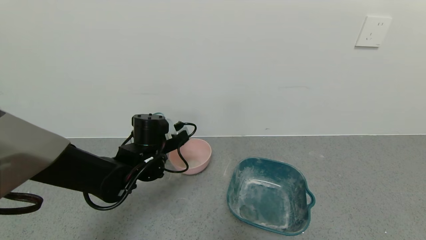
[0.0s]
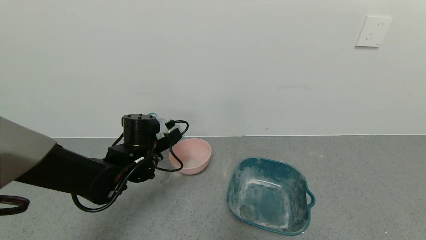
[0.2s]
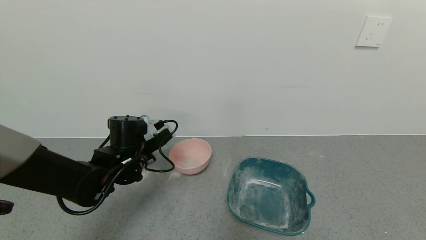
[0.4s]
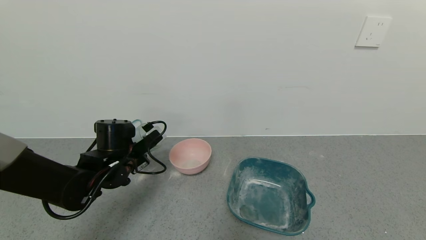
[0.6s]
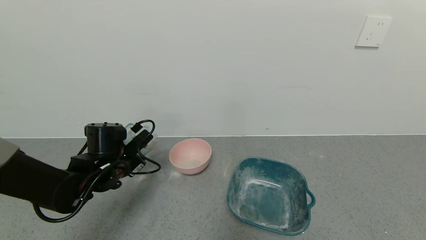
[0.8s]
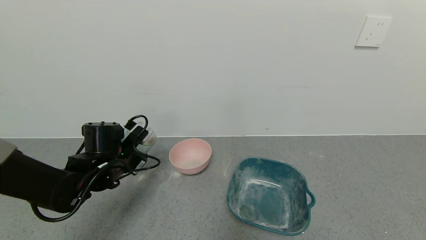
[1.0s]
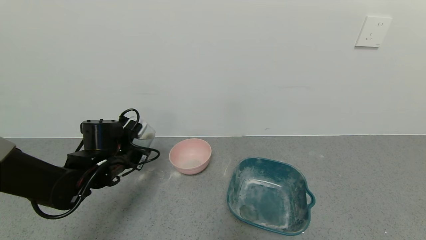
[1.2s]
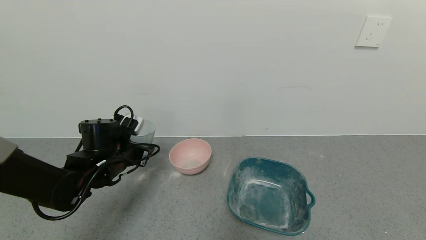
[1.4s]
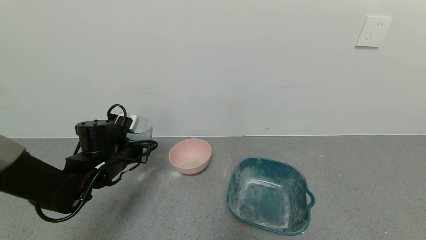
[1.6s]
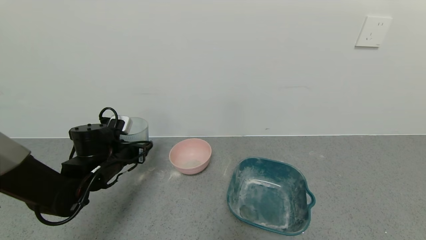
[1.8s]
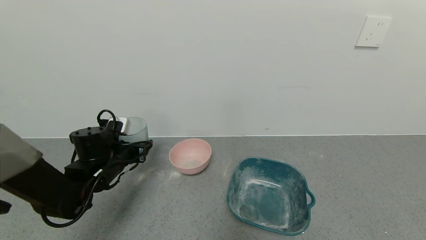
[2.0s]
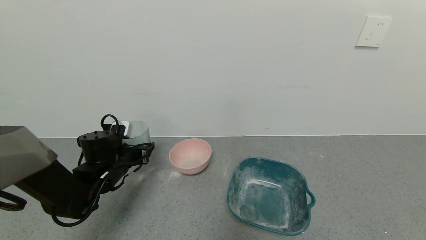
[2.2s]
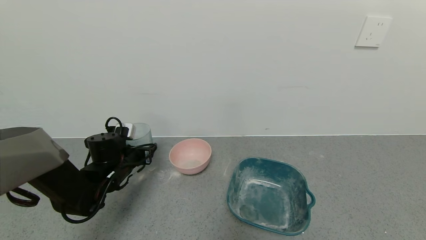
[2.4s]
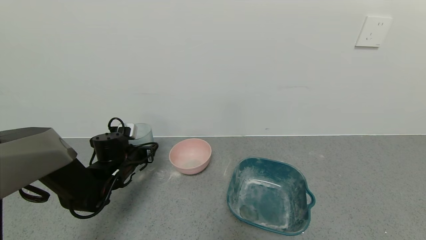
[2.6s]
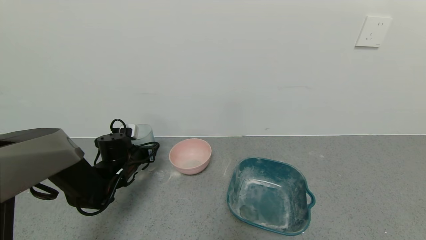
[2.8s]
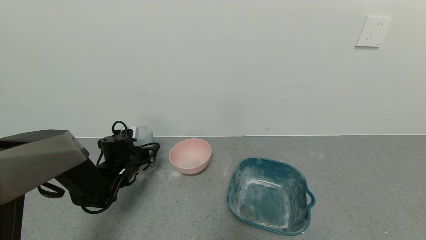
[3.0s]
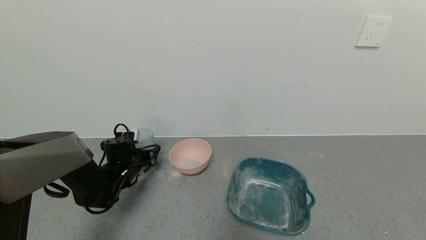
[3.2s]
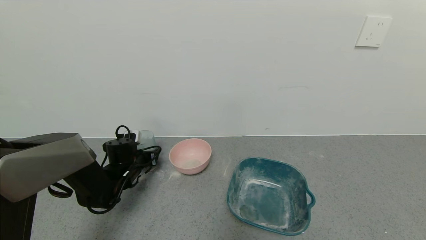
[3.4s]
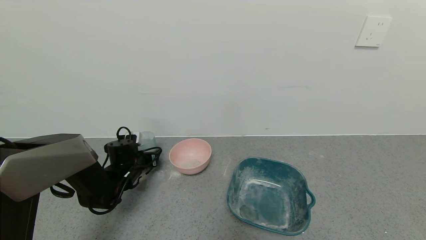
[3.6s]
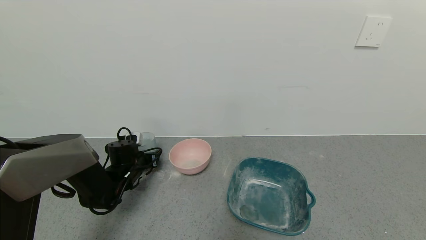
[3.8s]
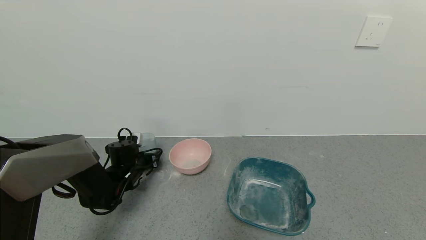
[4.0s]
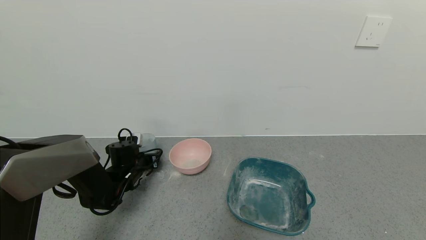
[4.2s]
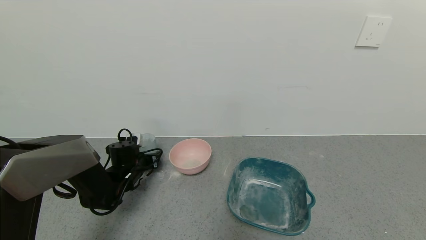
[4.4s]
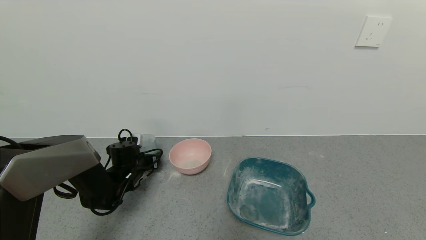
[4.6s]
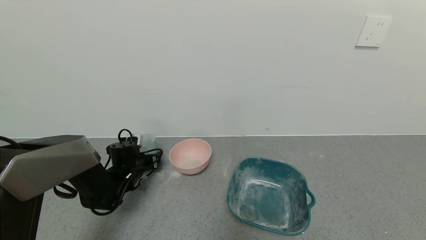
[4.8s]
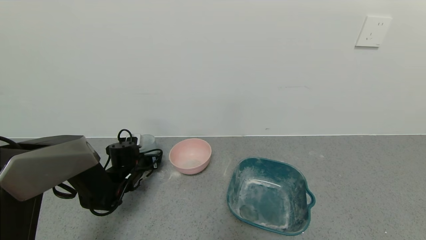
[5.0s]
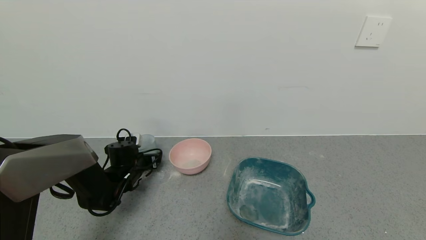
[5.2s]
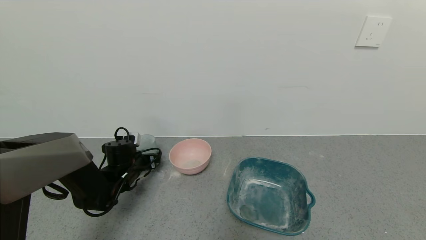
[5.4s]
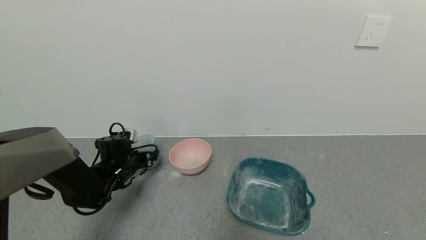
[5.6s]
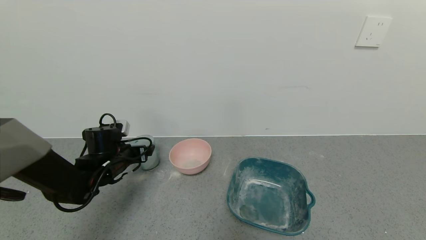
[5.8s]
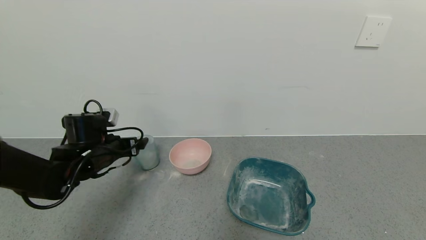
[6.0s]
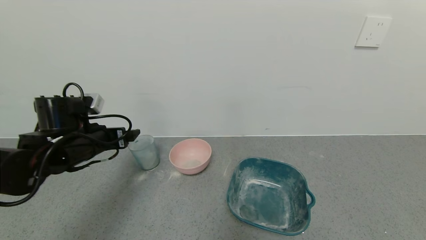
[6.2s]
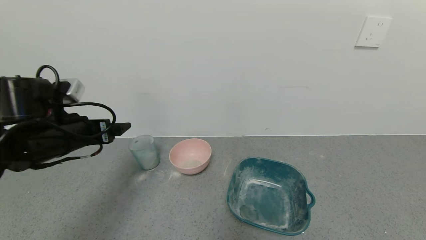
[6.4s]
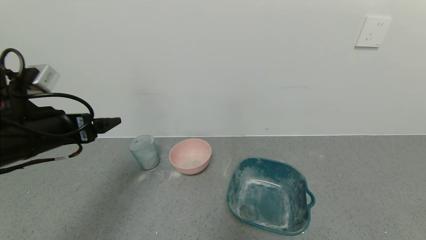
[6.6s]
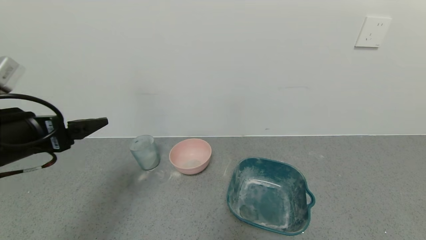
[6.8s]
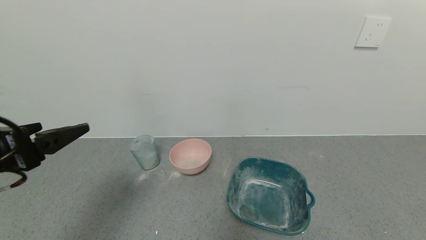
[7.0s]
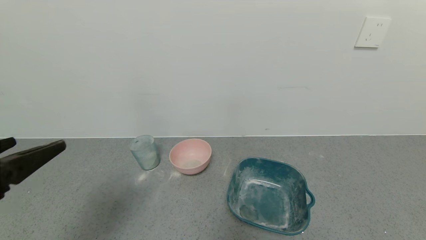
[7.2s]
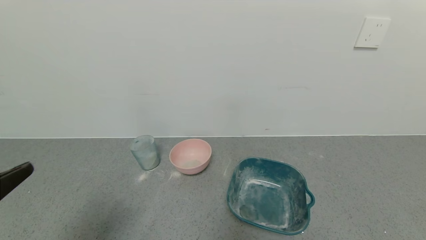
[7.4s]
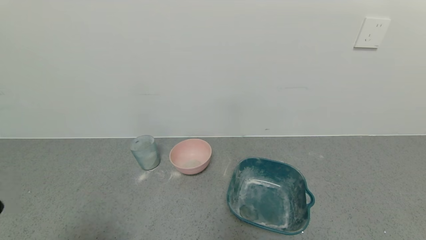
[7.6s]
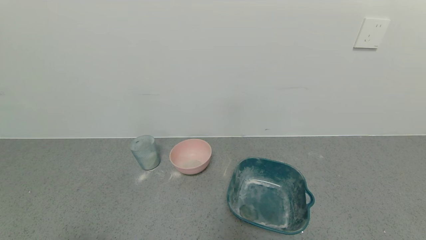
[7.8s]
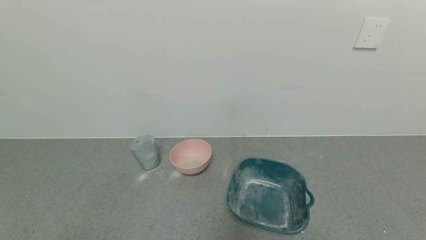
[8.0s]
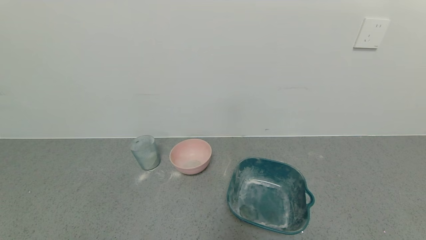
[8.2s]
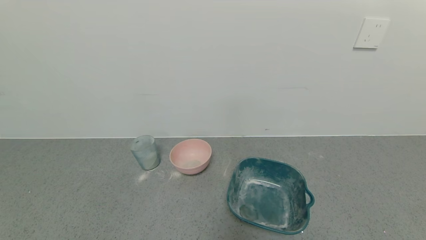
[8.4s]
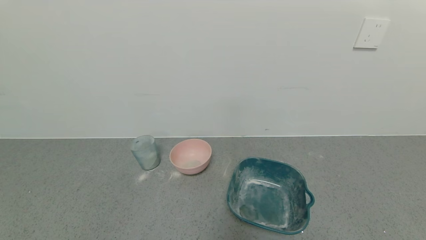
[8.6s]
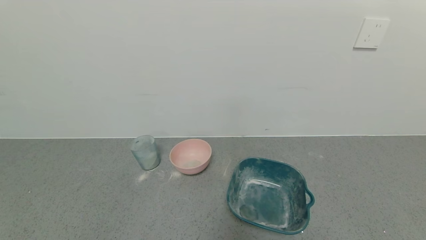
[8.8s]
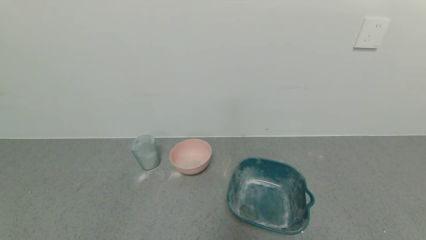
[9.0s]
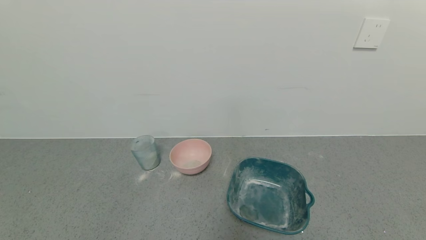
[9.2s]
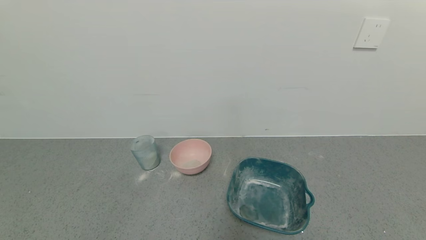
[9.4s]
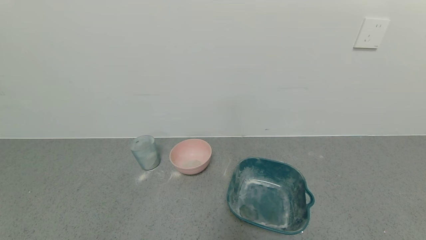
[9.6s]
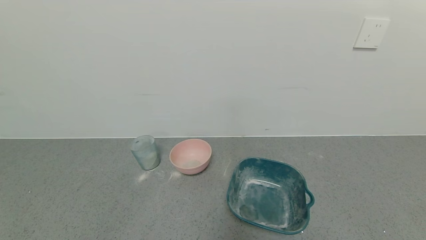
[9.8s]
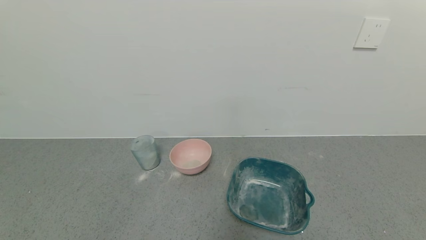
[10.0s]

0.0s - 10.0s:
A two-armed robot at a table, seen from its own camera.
Task of the whole recording: use a gripper to pick up the cup and pour the powder into a bowl or tray.
Step, 0.0s - 5.8s: Place the glass cup down with the left gripper.
0.0s - 1.4s: The left gripper moves to the left, approximately 10 cm.
1.4s - 2.8s: The left gripper moves downward and forward, some 10 cm.
2.8s - 4.2s: The grippers stay close to where they were, moving slightly.
4.2s - 5.8s: The left gripper is displaced upward by some 5 cm, and opens up.
5.8s - 7.2s: The left gripper travels backward and upward by roughly 30 cm.
7.2s - 8.6s: The left gripper heads backward and downward, covering about 20 cm.
